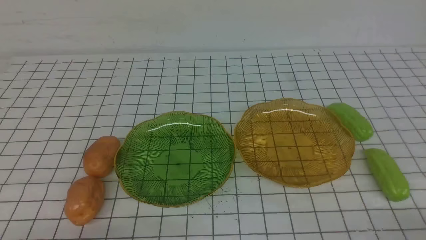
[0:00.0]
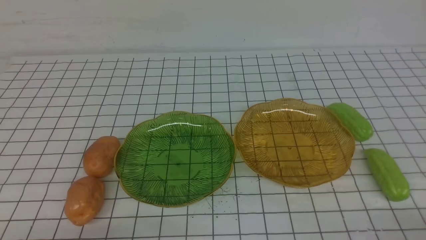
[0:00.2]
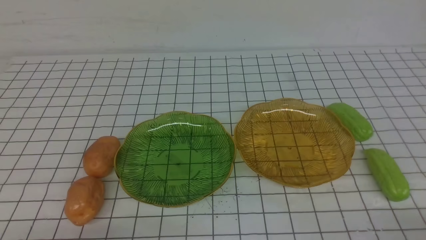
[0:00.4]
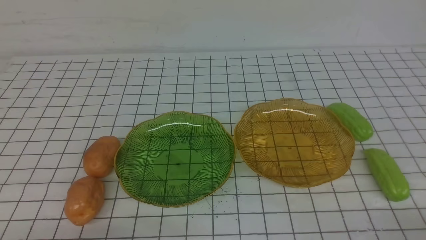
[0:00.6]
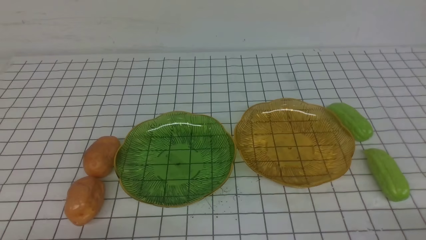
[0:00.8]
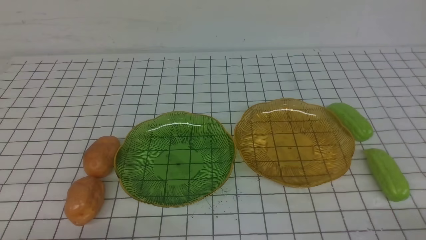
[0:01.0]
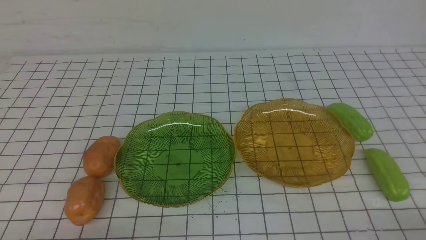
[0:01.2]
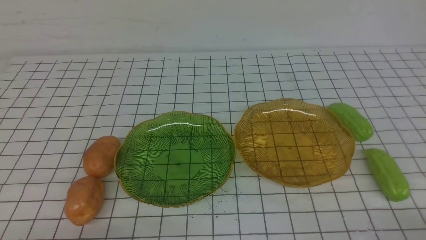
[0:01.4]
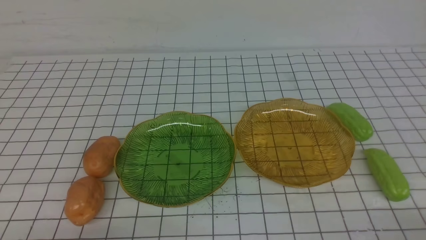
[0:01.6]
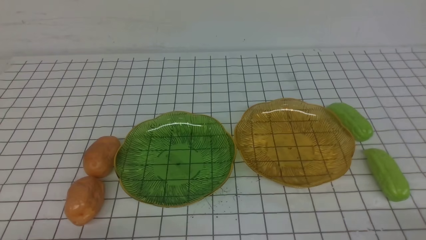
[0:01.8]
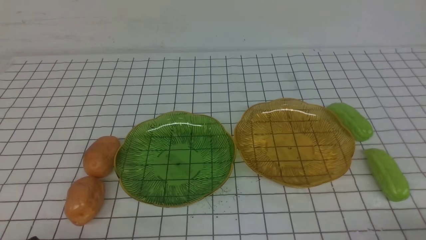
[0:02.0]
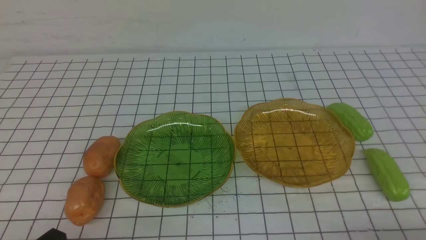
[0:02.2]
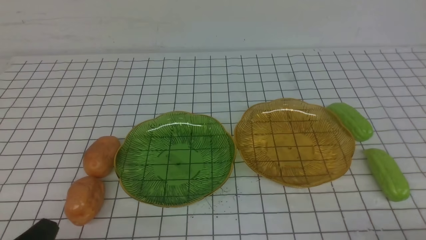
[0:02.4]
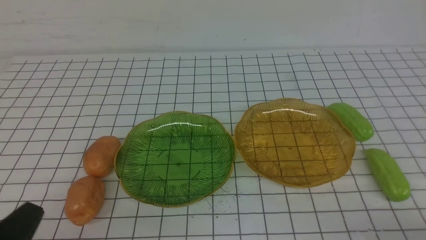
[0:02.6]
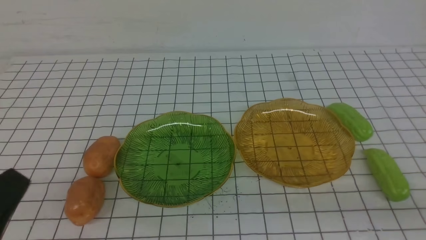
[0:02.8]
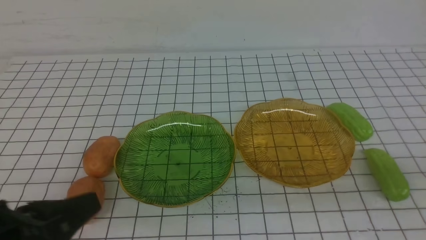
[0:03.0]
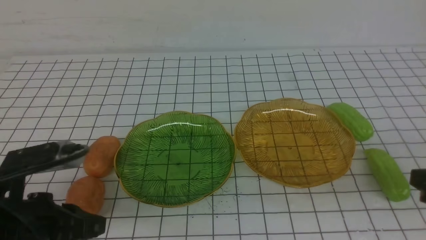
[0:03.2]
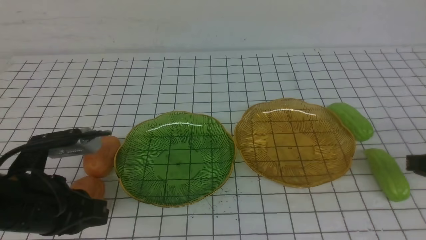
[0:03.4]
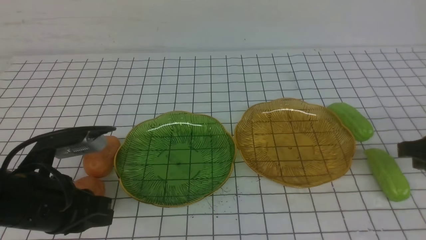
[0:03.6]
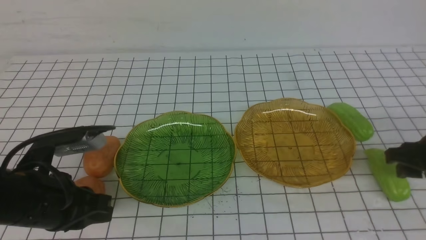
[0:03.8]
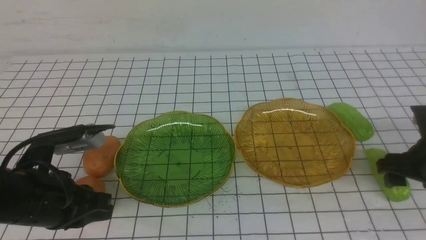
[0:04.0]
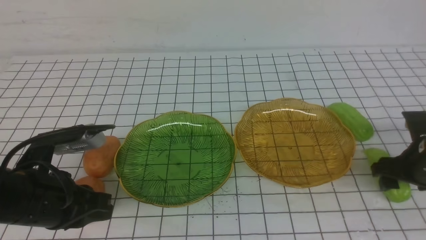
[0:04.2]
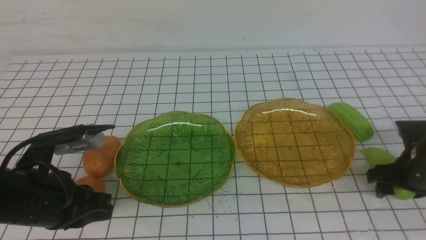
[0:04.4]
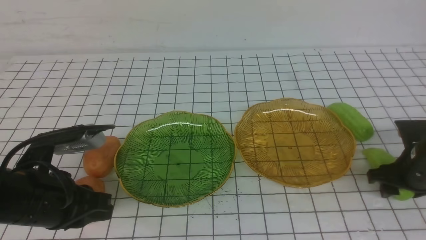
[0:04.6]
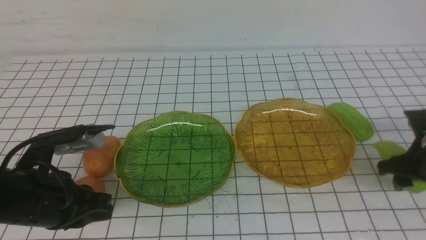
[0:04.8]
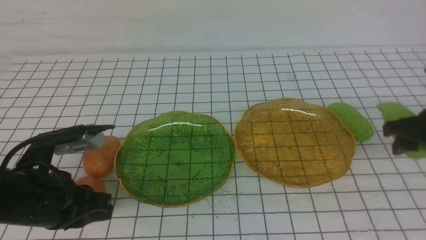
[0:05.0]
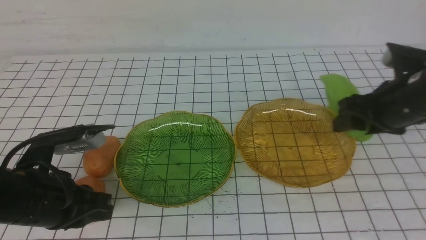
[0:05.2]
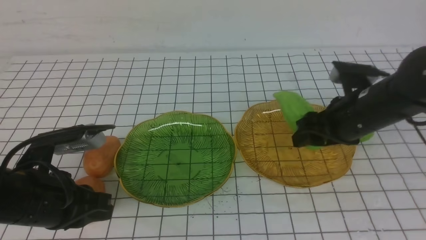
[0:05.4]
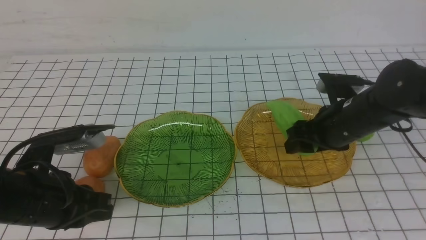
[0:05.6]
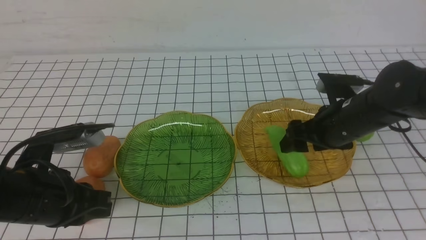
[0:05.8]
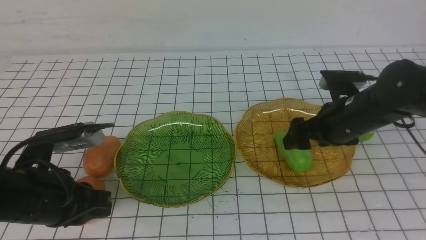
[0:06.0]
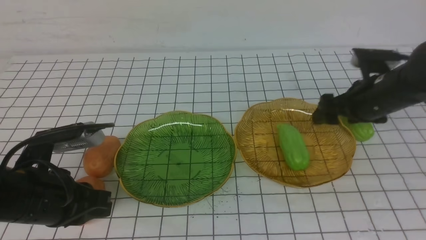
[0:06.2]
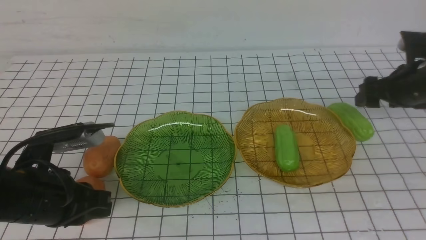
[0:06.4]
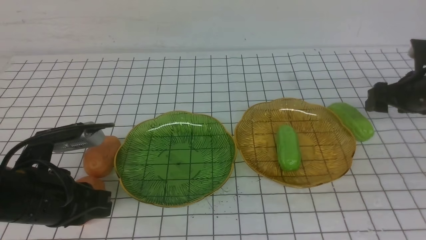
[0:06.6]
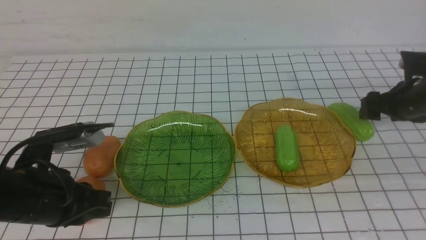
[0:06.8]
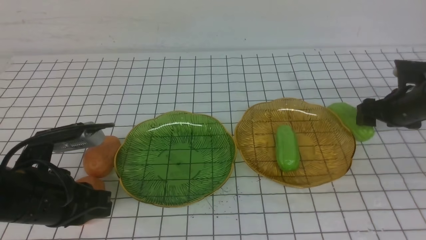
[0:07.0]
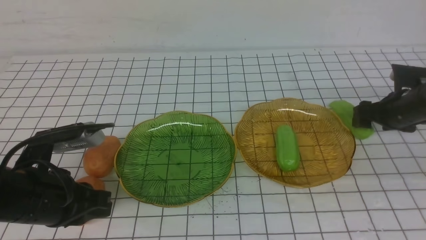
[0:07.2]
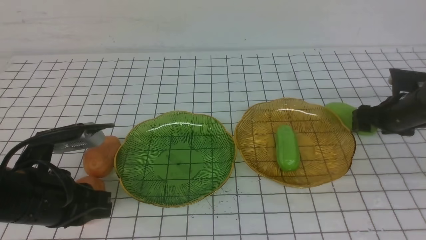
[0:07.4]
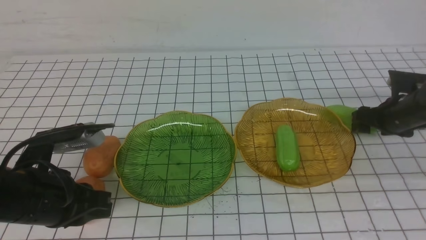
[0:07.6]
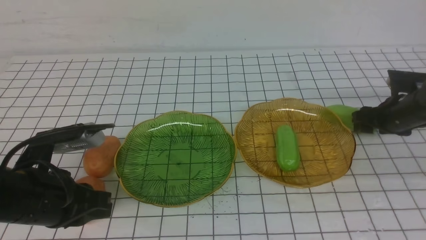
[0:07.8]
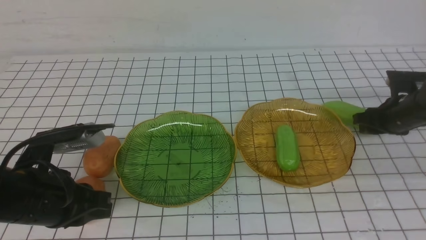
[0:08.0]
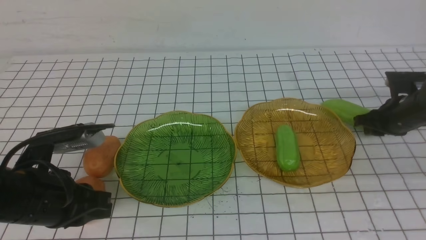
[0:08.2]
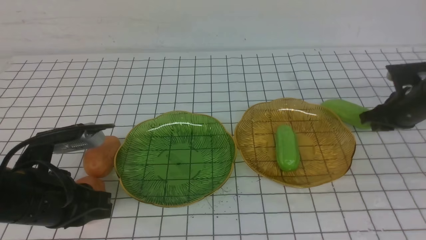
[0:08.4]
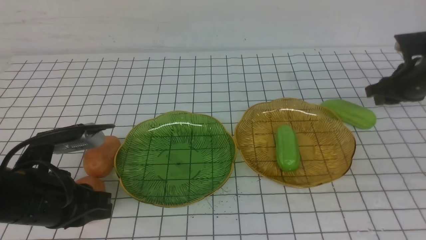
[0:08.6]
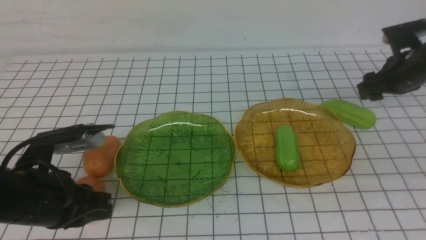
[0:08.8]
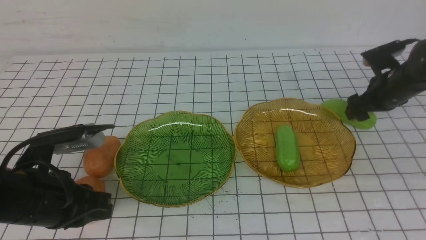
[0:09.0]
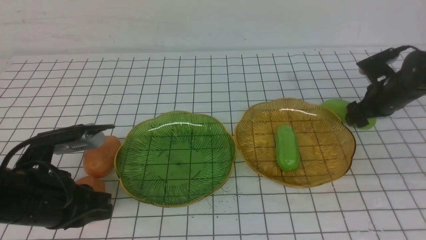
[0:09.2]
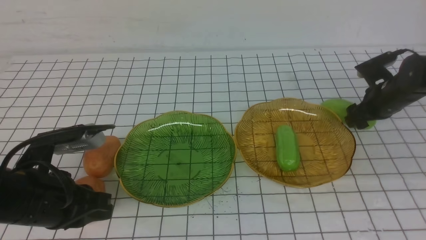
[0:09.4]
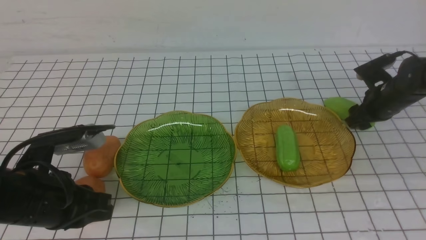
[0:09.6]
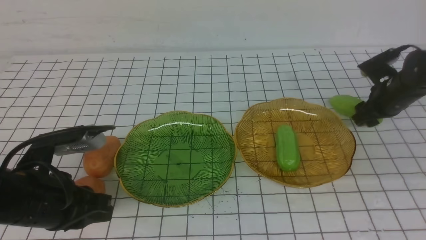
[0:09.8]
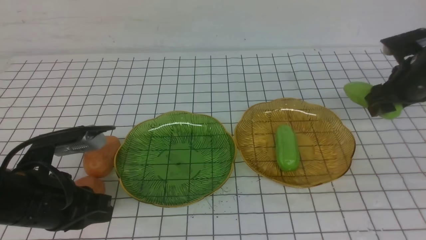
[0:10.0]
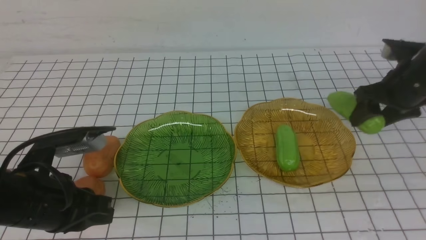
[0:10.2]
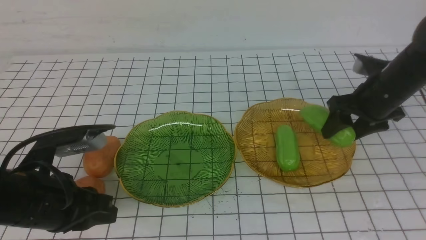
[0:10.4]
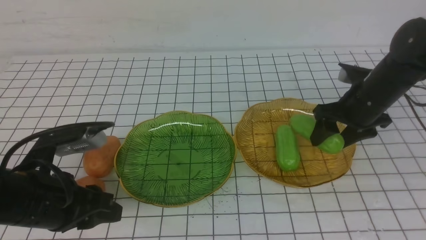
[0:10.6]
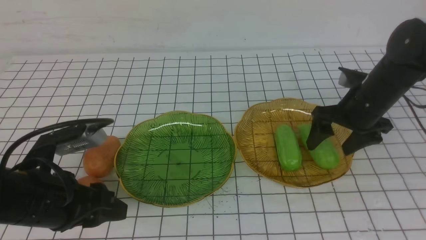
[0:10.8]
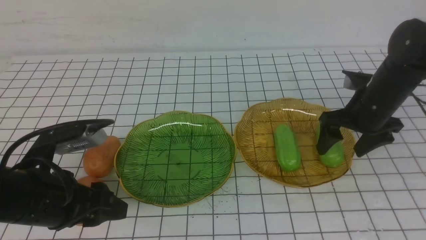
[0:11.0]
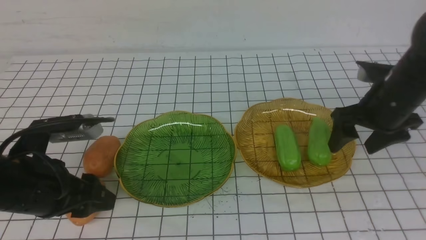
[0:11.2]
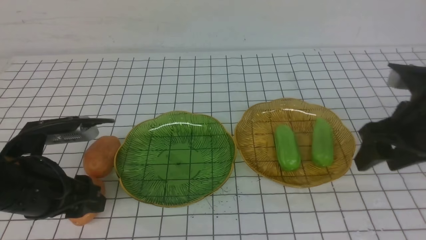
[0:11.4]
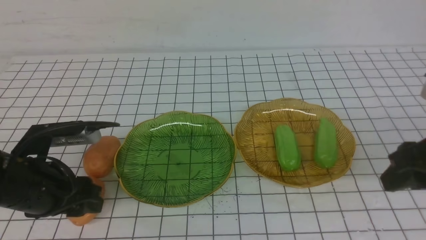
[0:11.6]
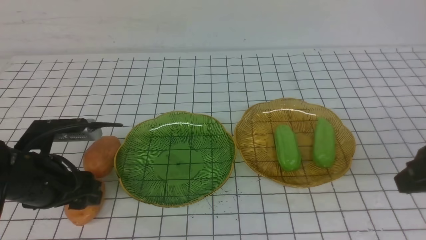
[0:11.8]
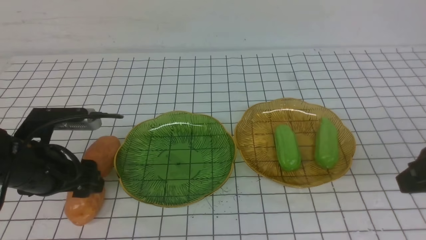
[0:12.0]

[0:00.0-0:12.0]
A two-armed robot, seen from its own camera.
Step, 0:00.0 to 0:11.0: use the right arm to grab a chayote and put it into the right plate.
0:01.6 to 0:03.0: Both grippers travel together upward, about 10 cm.
0:03.0 to 0:04.4: The left gripper is displaced forward by roughly 10 cm, while the right gripper shifts approximately 25 cm forward and downward, and opens.
0:04.4 to 0:06.0: The right gripper goes roughly 15 cm to the left and upward.
0:06.0 to 0:07.6: The right gripper goes roughly 15 cm to the right, forward and downward.
0:07.6 to 0:09.0: The right gripper ends up some 5 cm from where it was, and closes and opens again.
0:09.0 to 0:10.4: The right gripper shifts about 10 cm backward and to the left.
0:10.4 to 0:12.0: The right gripper shifts approximately 20 cm backward and upward; the left gripper ends up roughly 5 cm from where it was, and opens its fingers.

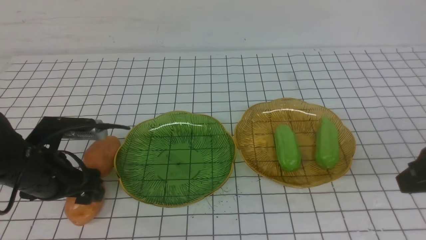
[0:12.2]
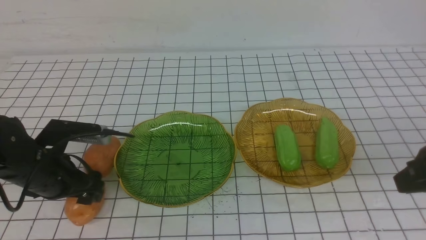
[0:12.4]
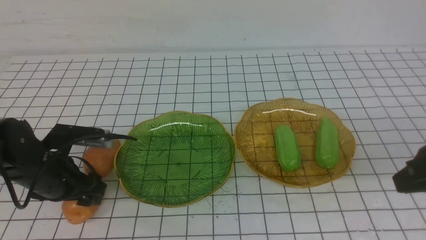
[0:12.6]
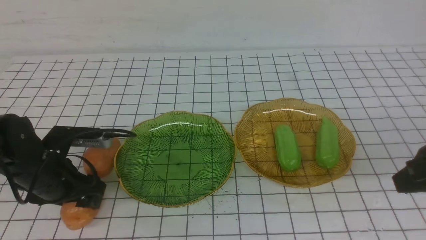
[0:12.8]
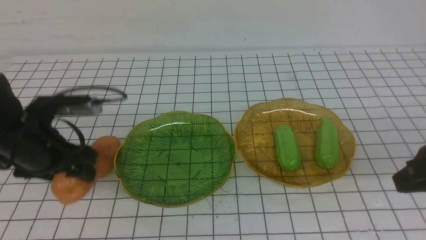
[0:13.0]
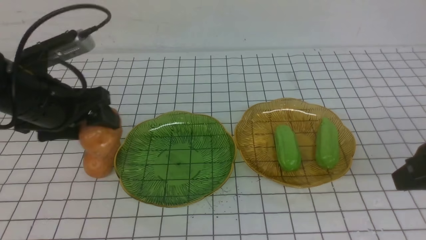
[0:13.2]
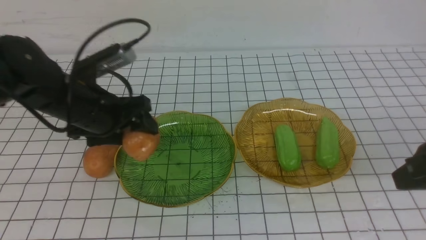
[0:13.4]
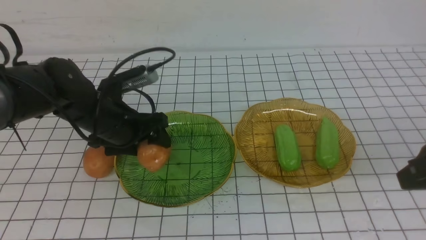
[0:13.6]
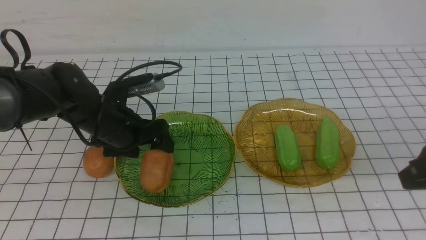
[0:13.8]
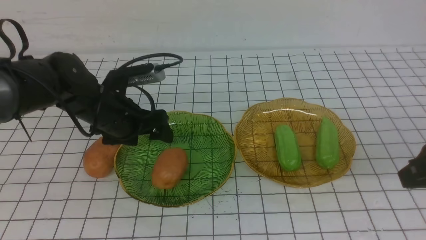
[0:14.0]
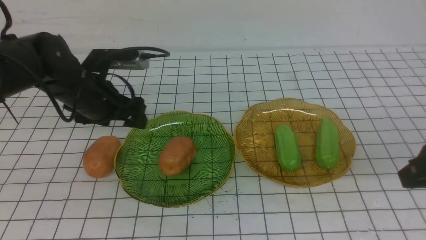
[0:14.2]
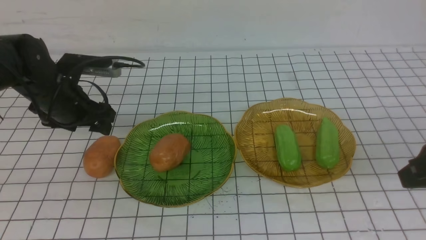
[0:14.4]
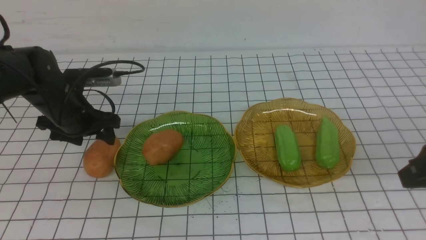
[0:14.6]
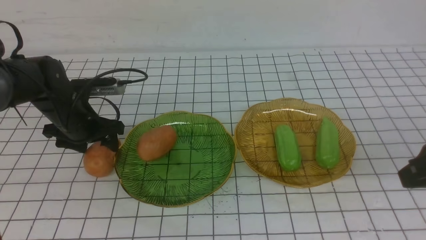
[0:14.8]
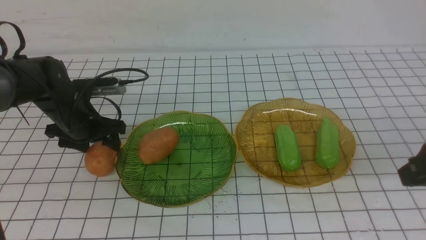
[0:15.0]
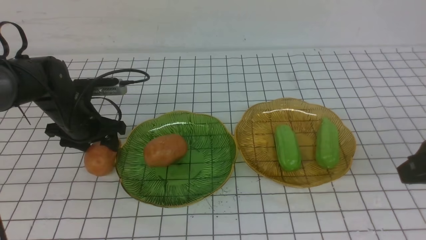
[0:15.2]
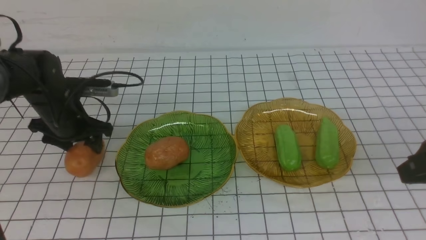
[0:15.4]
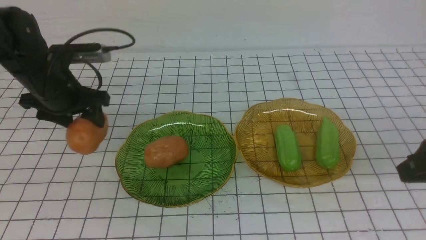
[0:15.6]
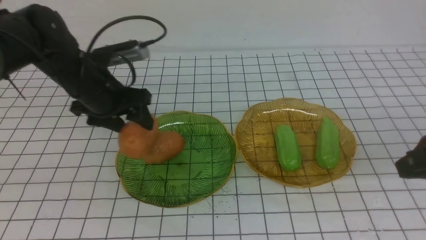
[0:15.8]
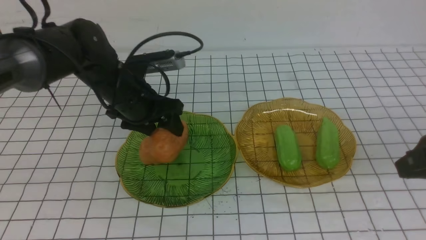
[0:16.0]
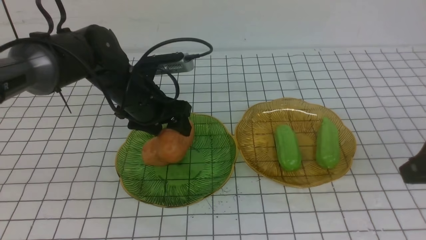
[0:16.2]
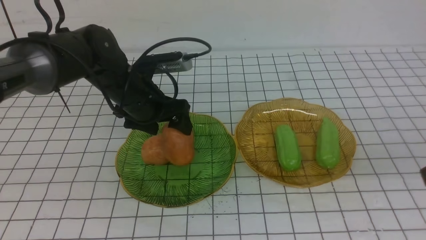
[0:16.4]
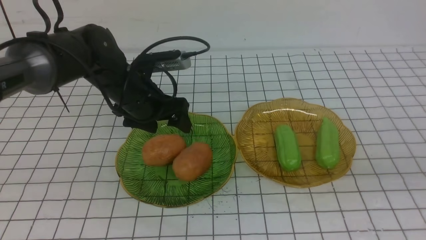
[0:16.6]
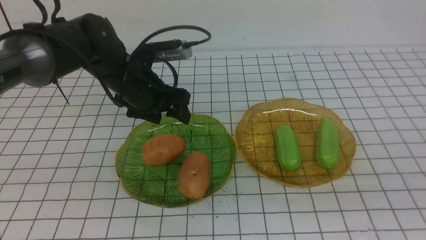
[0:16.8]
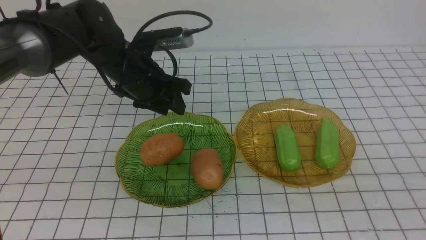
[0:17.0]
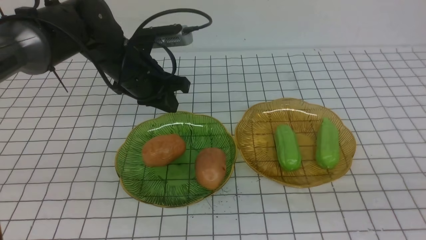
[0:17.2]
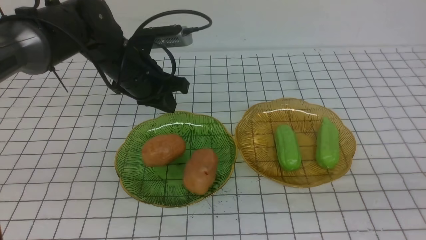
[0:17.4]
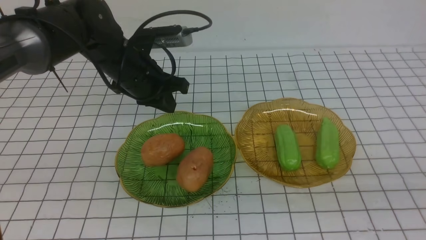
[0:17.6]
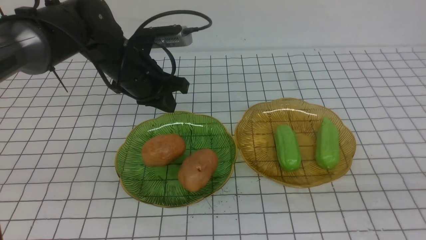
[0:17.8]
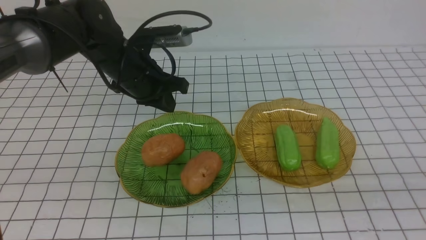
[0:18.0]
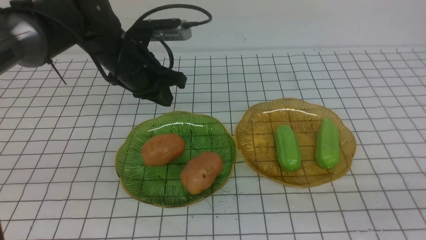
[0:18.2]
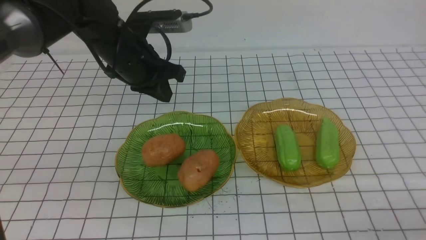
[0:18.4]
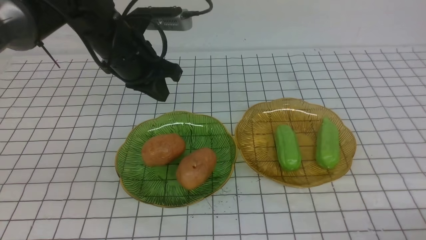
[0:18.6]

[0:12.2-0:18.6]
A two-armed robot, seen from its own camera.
Step, 0:12.2 to 0:16.6: Grab a potato with your left arm and put it on the left plate.
0:12.2 to 0:13.8: The left gripper shifts roughly 10 cm forward and to the right.
0:13.8 to 0:15.4: The left gripper is displaced to the left by some 10 cm.
0:15.4 to 0:17.0: The left gripper moves to the right and upward, approximately 15 cm; the right gripper goes some 15 cm backward.
0:17.0 to 0:18.6: The left gripper travels upward by roughly 5 cm, and closes. Meanwhile the right gripper is displaced downward by roughly 15 cm.
